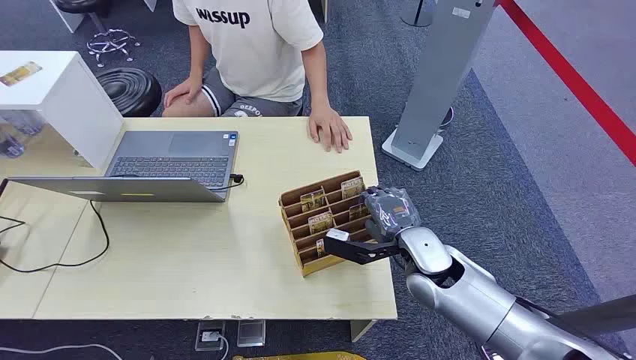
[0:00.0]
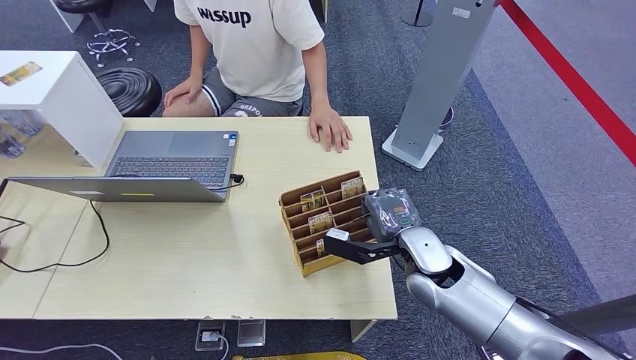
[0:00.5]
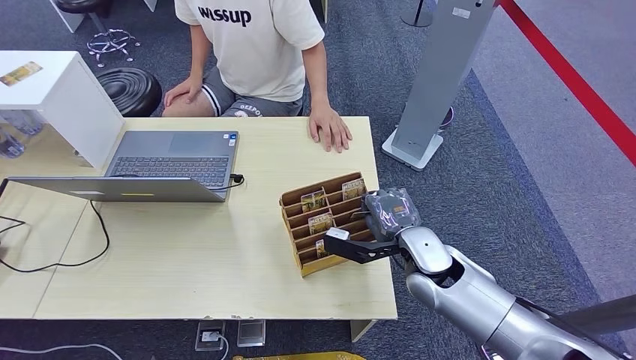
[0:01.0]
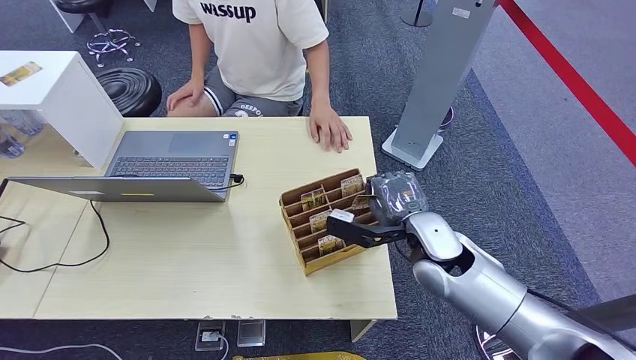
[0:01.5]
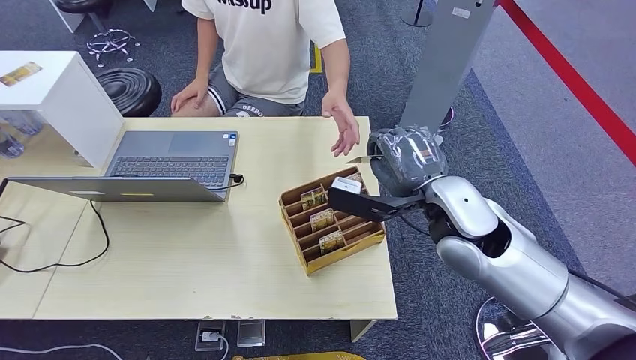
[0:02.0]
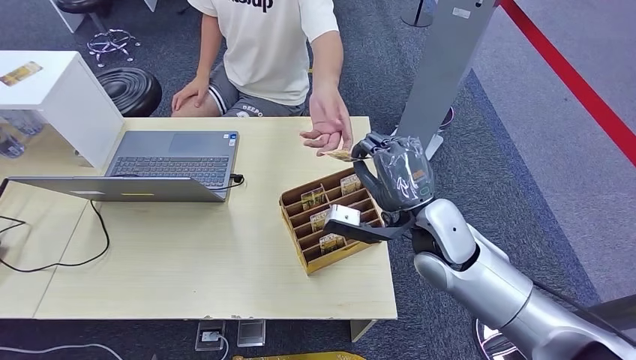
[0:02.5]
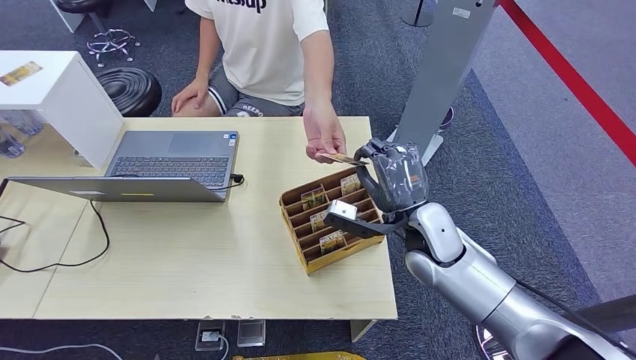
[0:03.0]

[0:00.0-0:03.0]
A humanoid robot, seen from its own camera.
Step, 0:00.0 to 0:01.5: Pick up the key card from the card box.
Step, 0:02.0 to 0:03.0: Hand the key card to the target.
0:01.5 to 0:03.0: The right hand travels upward and back again, about 10 cm each way.
